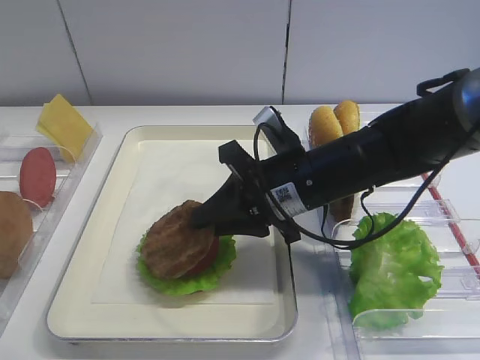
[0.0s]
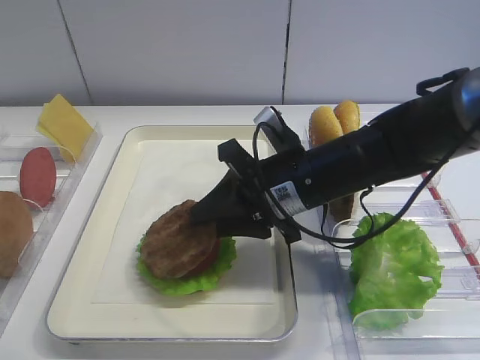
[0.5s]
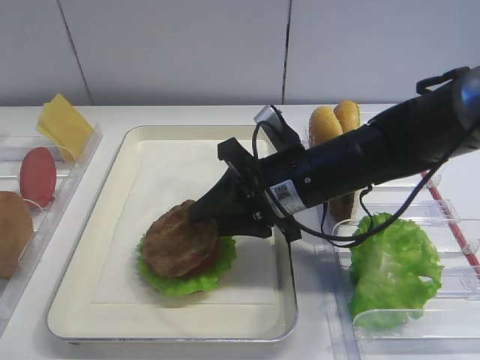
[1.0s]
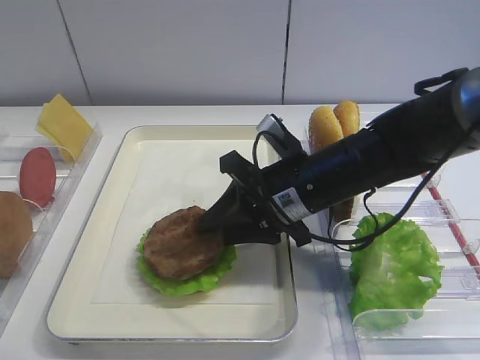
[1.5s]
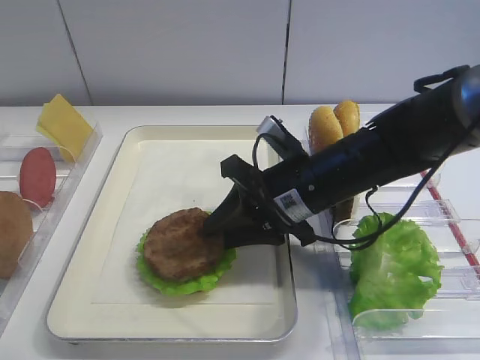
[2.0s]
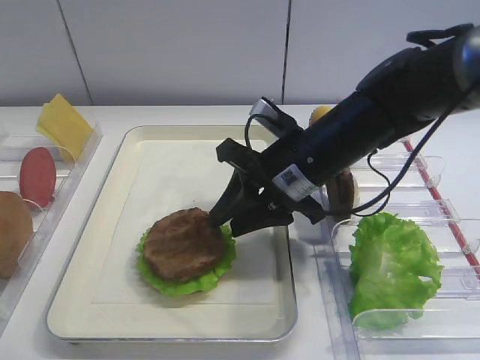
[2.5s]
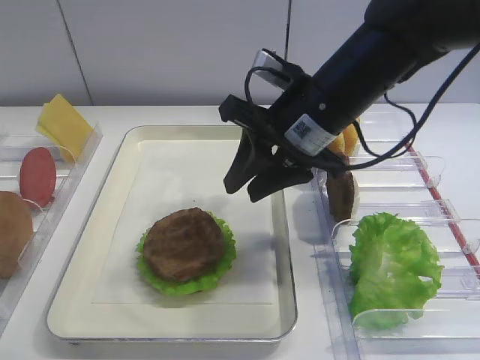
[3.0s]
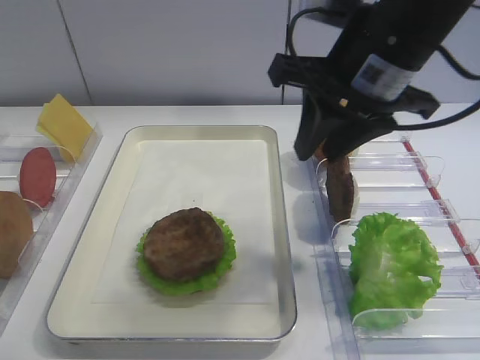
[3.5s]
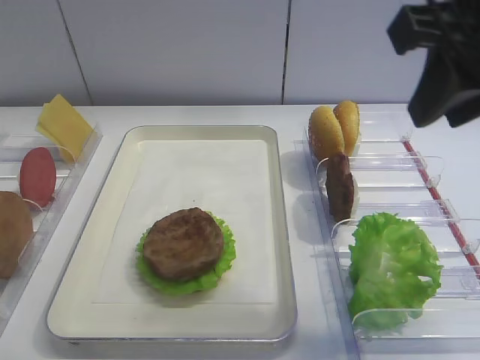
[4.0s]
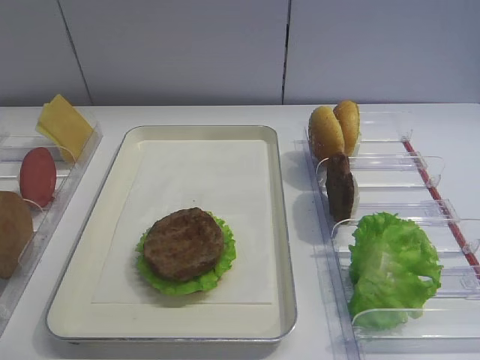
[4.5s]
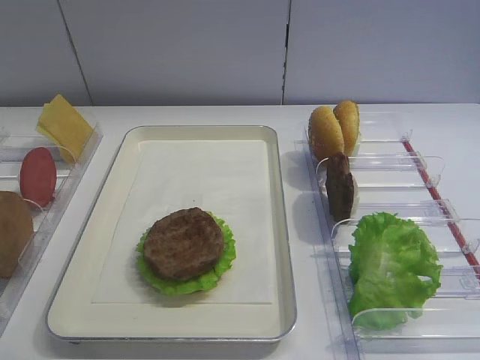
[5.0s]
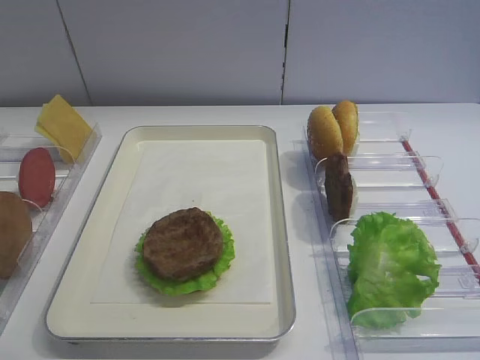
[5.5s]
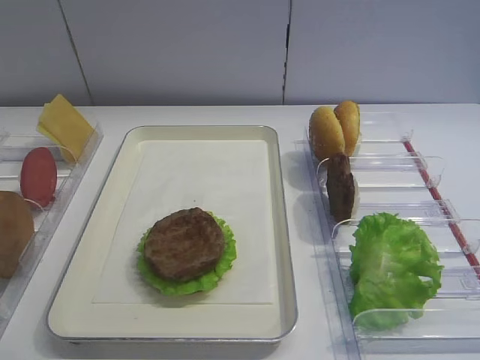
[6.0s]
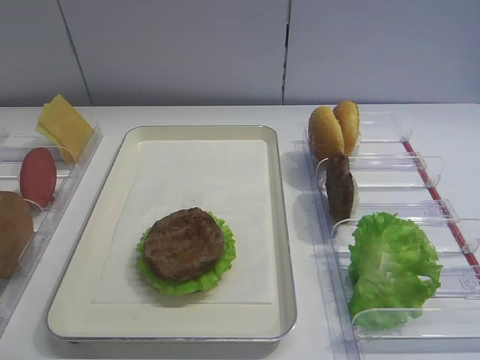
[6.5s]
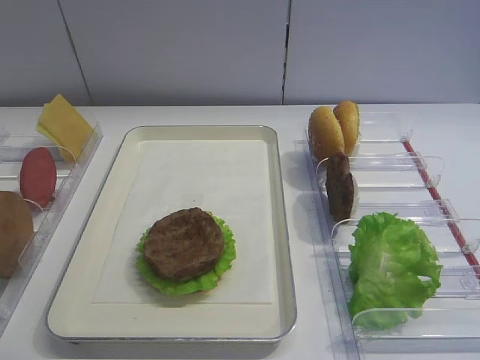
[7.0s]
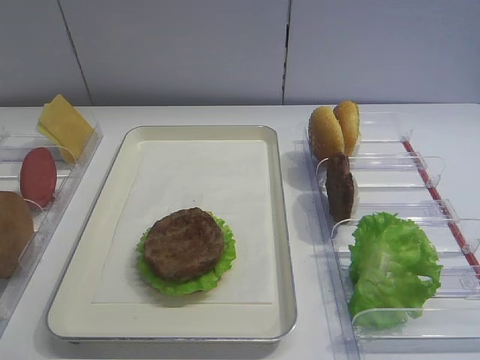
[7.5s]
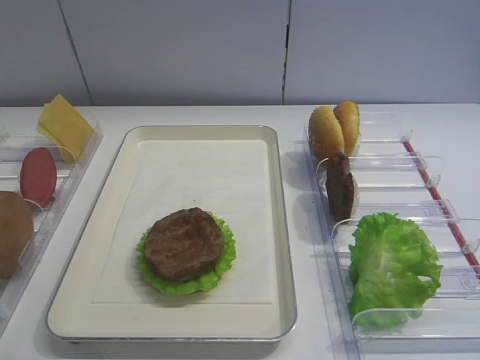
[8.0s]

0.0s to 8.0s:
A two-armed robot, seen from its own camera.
Step, 0.0s to 2.5s: Place the cutlet on the tomato slice with the right gripper.
0.0s to 2.0s: There are only small adjustments of the grippers.
2.0s to 4.0s: The right gripper travels upward and to the right by about 25 cm.
4.0s to 6.0s: The right gripper is displaced backward, downward and to the right by approximately 25 cm, and closes its fingers.
6.0s to 8.0s: Both grippers stay about where they are.

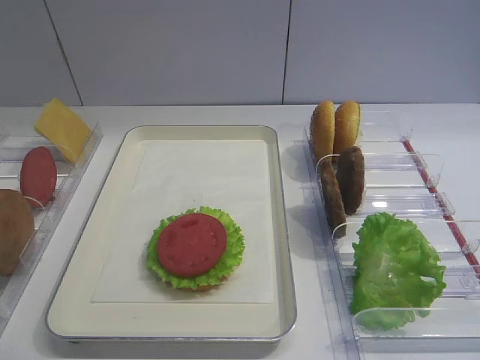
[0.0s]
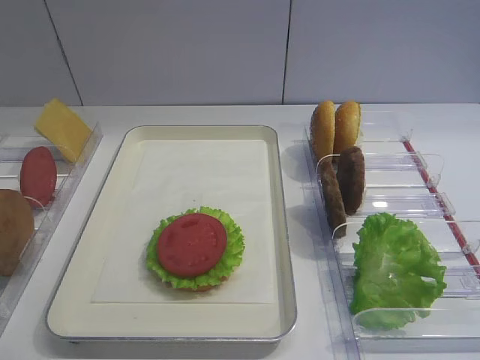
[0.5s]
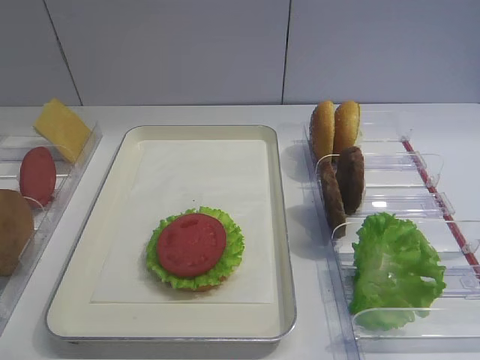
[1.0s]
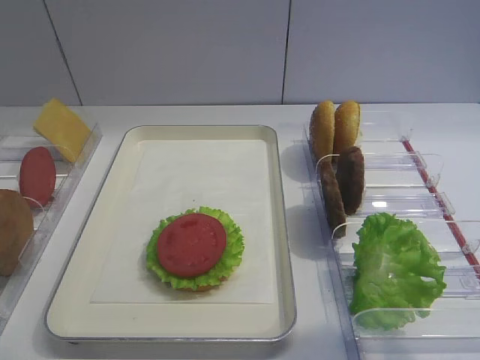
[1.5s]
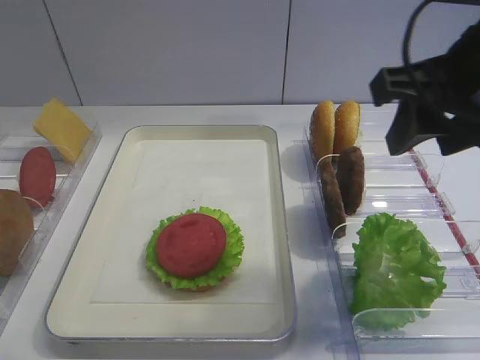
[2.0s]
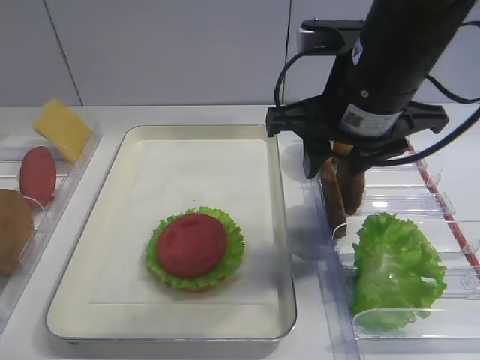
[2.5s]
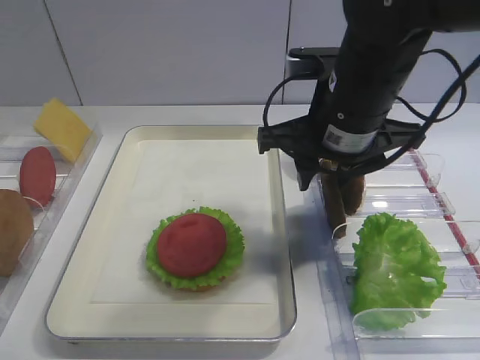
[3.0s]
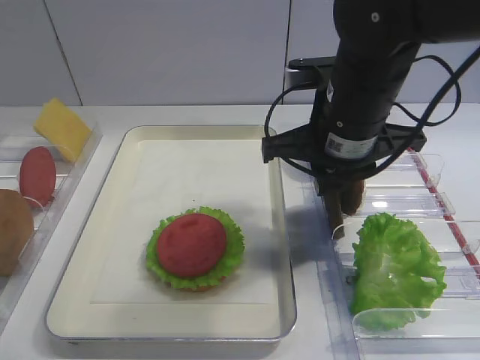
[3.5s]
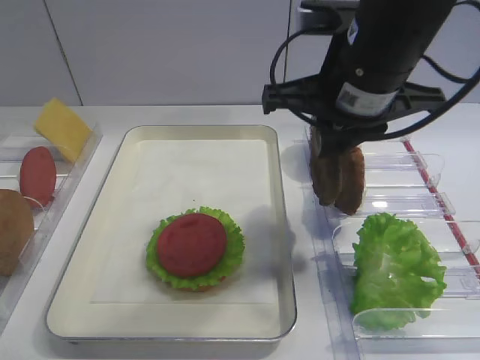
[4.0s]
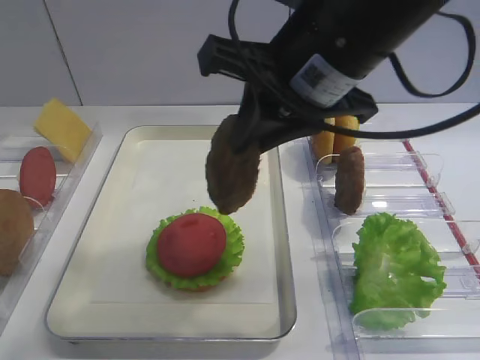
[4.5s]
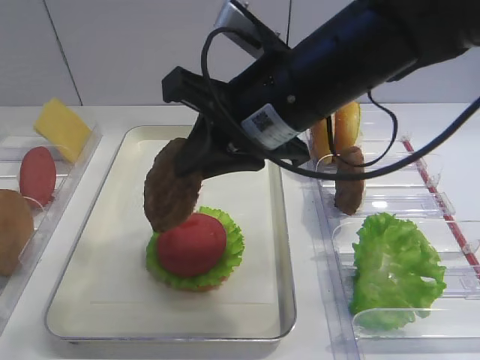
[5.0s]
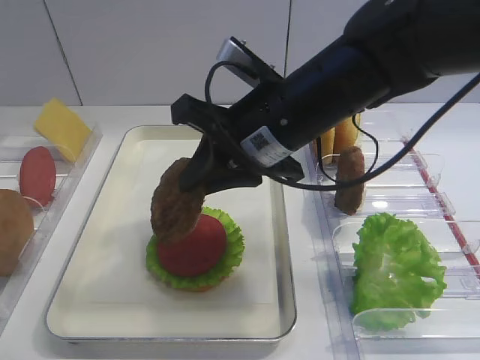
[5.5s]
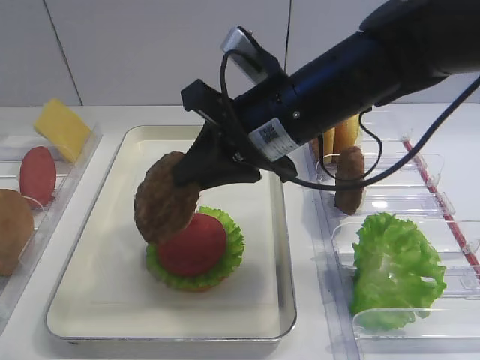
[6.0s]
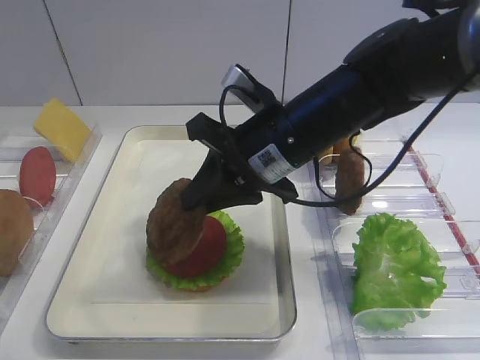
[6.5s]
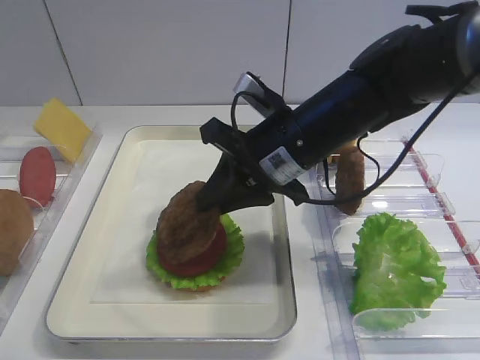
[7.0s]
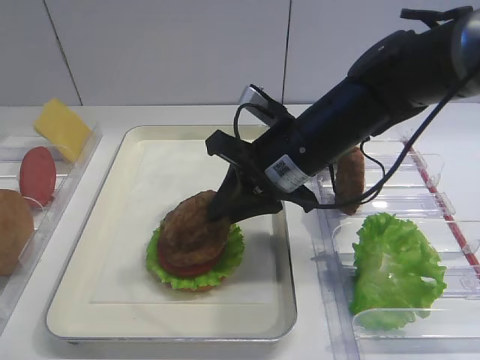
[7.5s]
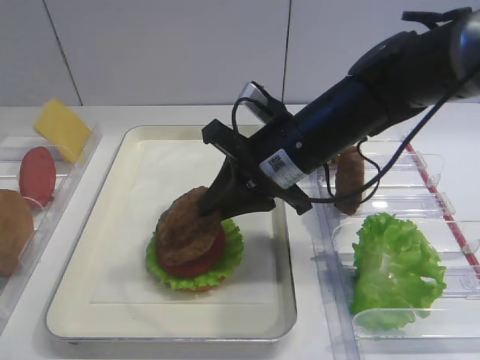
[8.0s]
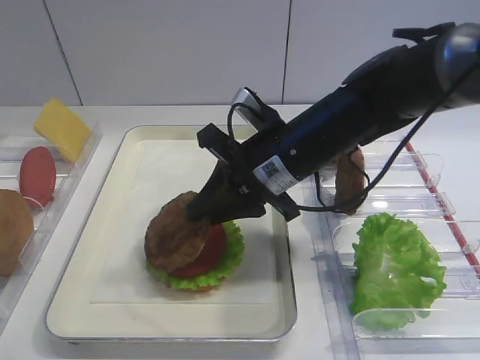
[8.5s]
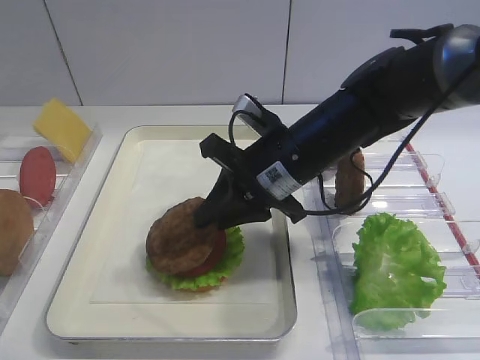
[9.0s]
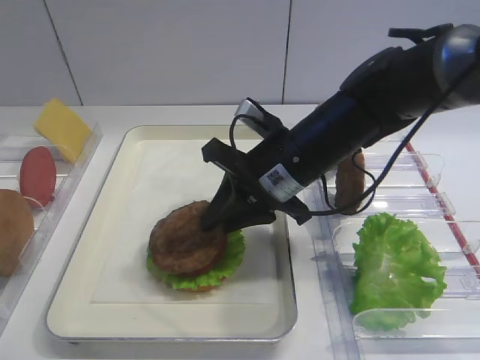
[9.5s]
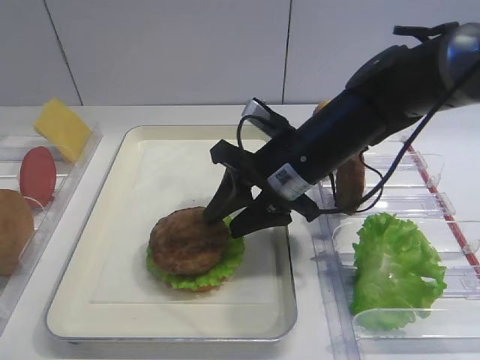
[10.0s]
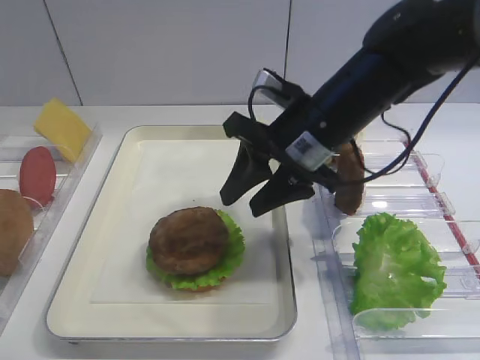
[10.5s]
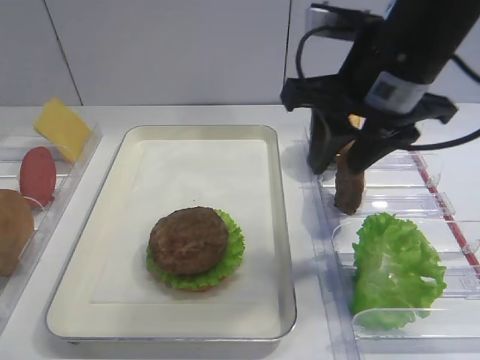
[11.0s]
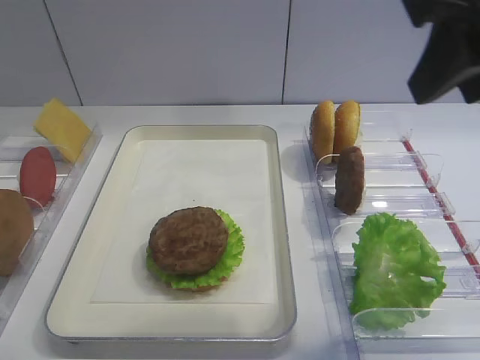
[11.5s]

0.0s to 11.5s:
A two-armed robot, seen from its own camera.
Step, 0.0s to 3.5s: Pick up the cutlet with the right gripper.
Step, 4.0s to 10.0s: Place the cutlet on the tomato slice with the right gripper.
2.0s to 4.0s: The right gripper travels to the left and forward by approximately 10 cm, and closes.
4.0s to 6.0s: The right gripper is displaced to the left by roughly 5 cm.
6.0s to 7.5s: The right gripper travels downward by about 5 cm.
7.5s to 9.5s: The grippers stay close to where they were, moving slightly.
9.5s to 11.5s: The right gripper heads upward, backward and to the right, covering some 25 cm, and opens its fingers.

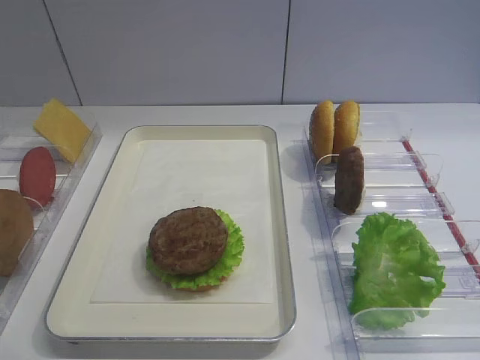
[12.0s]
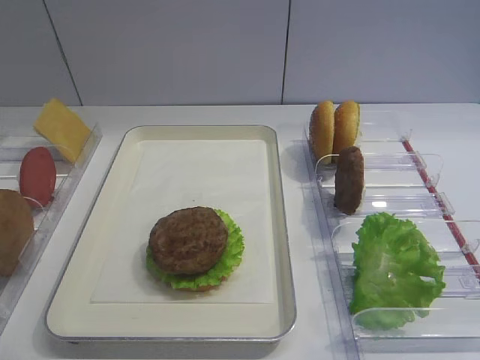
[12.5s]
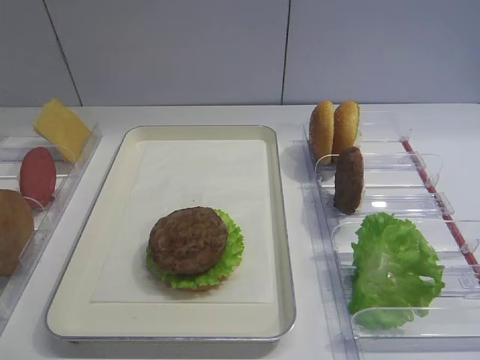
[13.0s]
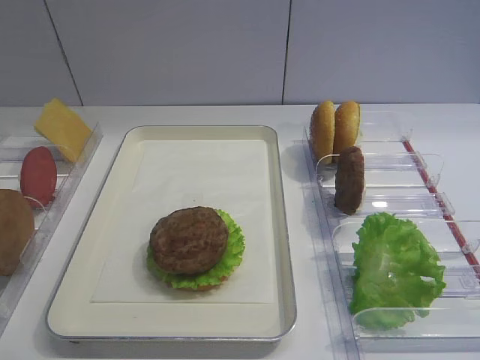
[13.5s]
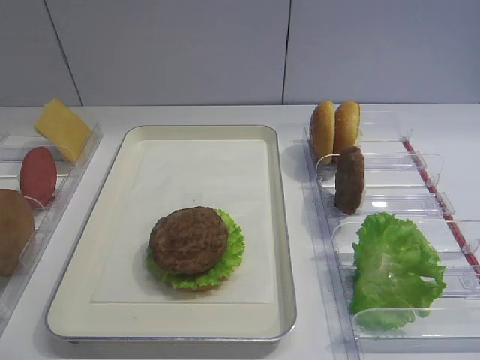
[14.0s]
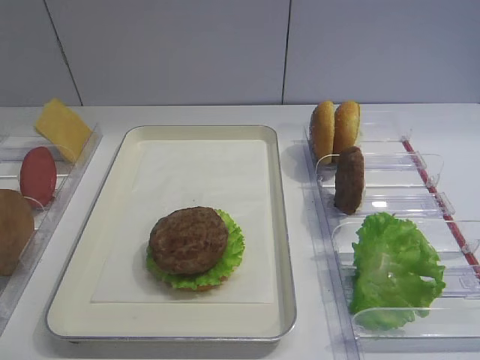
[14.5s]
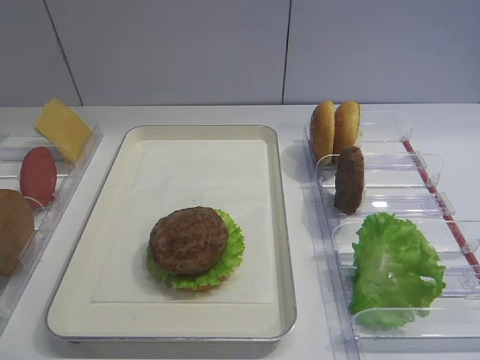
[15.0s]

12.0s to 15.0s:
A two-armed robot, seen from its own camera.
13.5s to 15.0s: The two grippers keep their place.

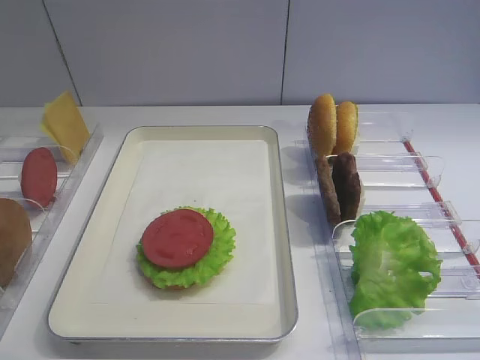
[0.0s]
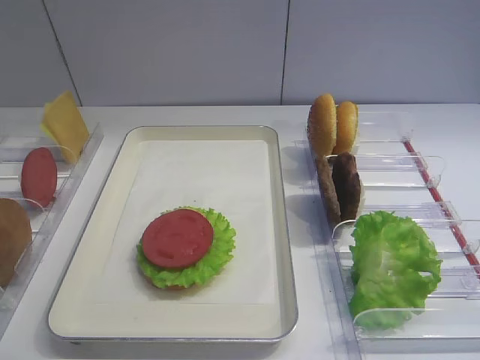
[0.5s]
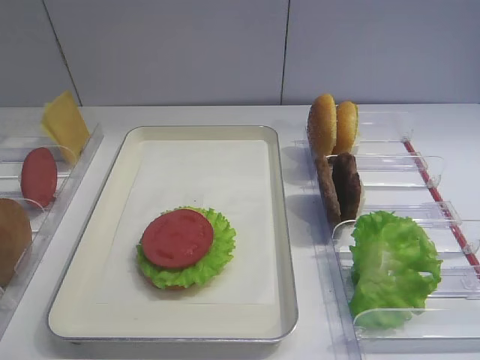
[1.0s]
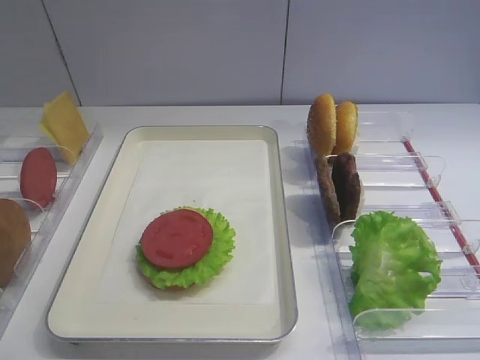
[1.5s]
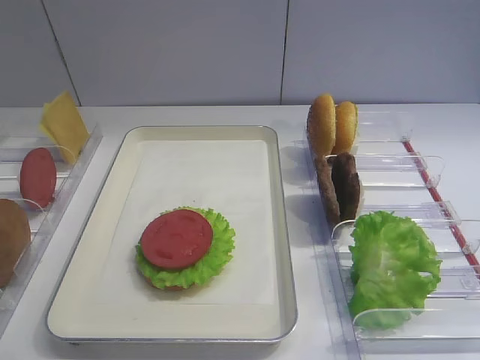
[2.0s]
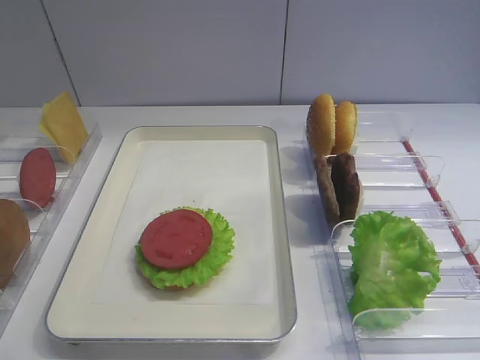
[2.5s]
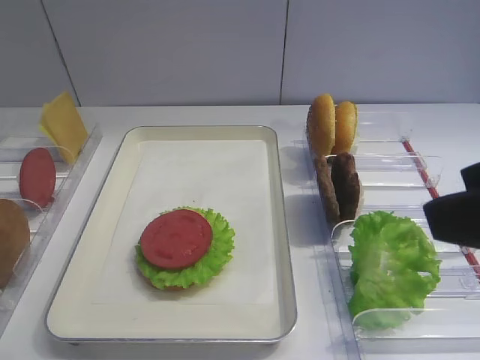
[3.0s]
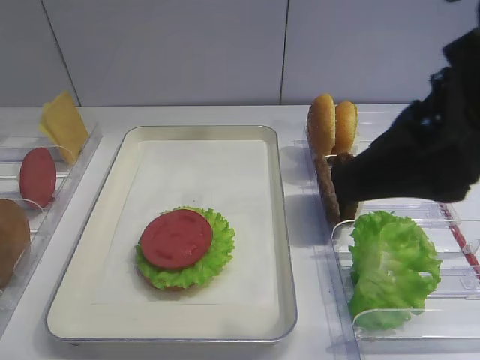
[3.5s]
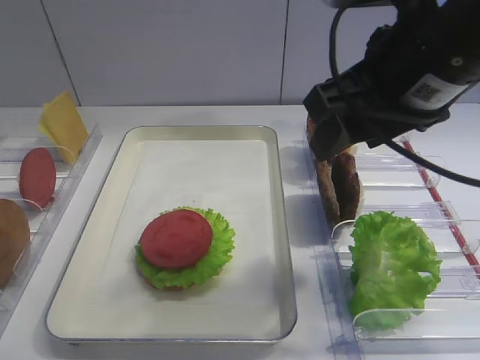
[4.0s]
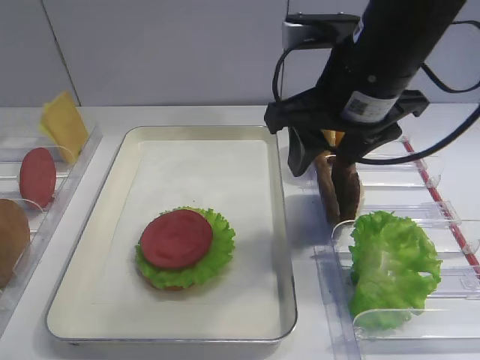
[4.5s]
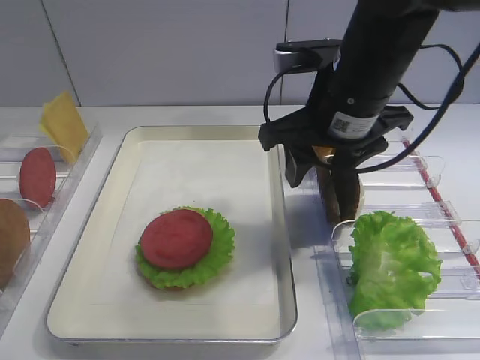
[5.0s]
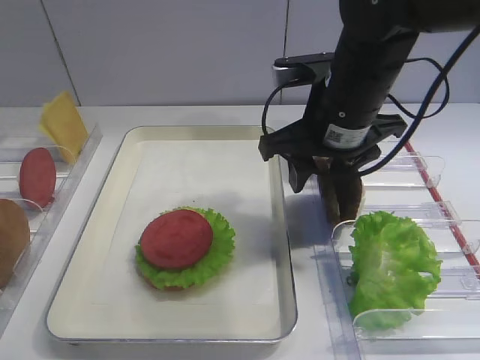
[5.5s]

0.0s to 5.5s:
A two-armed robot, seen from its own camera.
2.0s to 3.5s: The right gripper is displaced forward, to the left and upward by roughly 20 cm.
3.5s to 5.5s: The right gripper moves forward, downward and to the left, roughly 20 cm.
